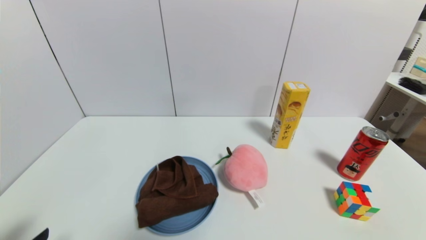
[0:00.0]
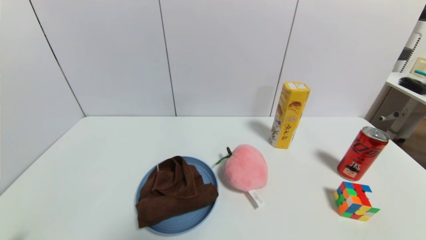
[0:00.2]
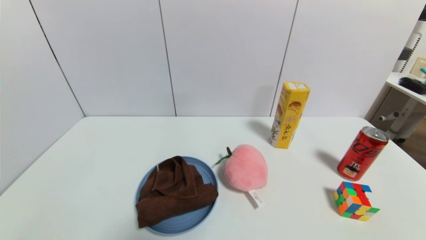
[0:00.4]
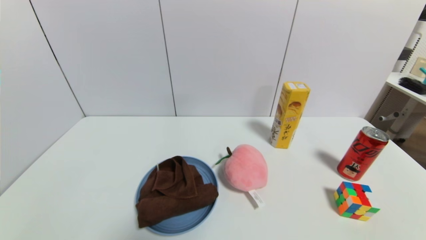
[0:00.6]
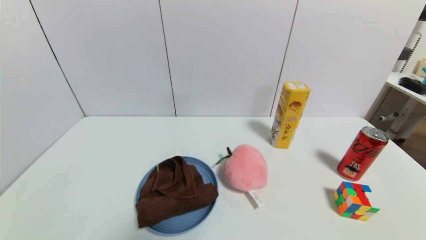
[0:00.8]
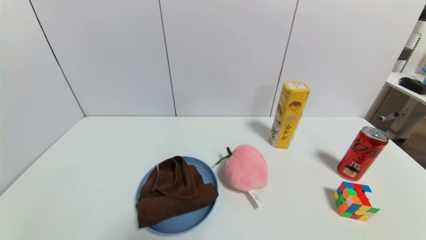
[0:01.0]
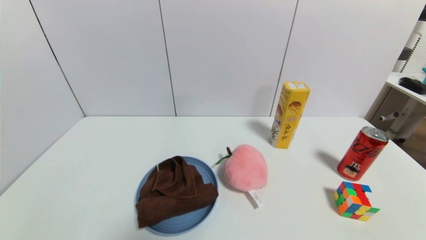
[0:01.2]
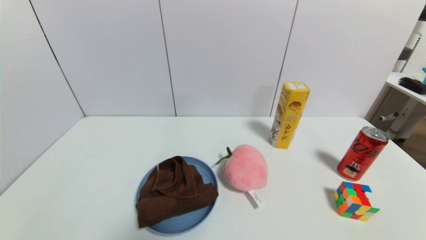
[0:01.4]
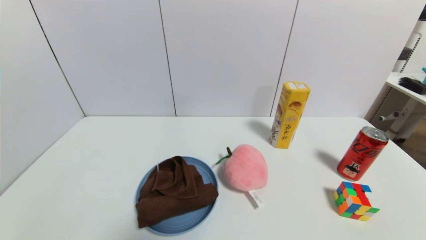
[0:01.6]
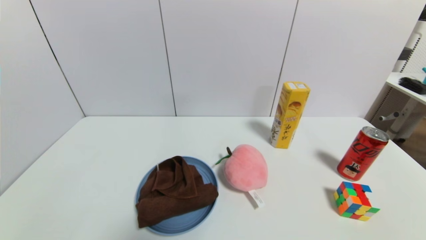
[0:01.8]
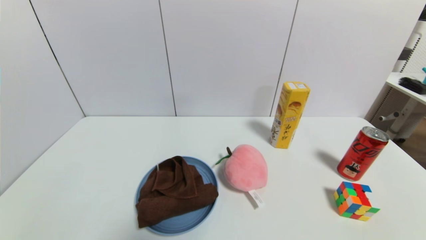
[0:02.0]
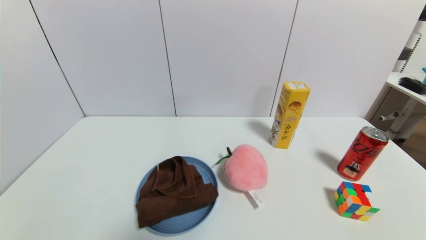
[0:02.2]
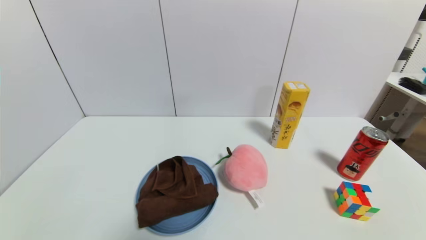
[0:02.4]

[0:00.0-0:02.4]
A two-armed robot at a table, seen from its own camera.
Task of the whole recording: use a gripper to pick the target object and place on the blue plate.
0:01.2 to 0:02.4: The two grippers keep their place.
